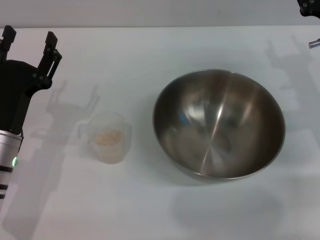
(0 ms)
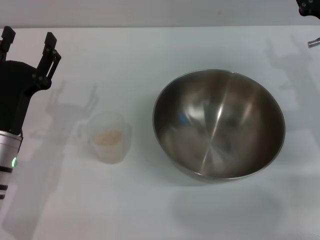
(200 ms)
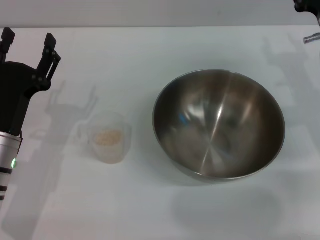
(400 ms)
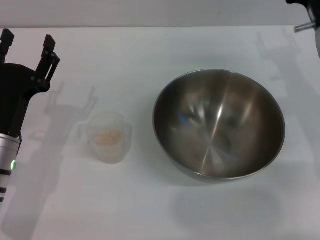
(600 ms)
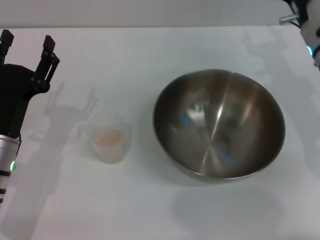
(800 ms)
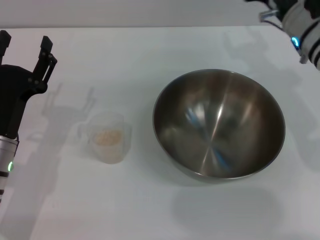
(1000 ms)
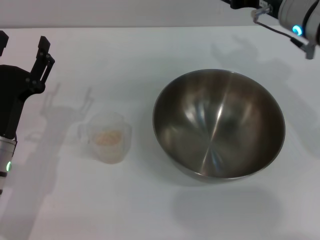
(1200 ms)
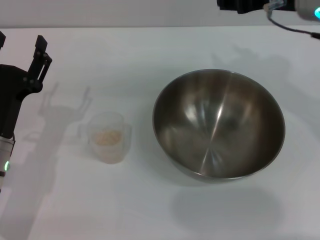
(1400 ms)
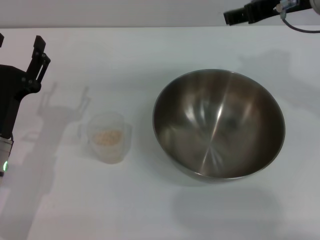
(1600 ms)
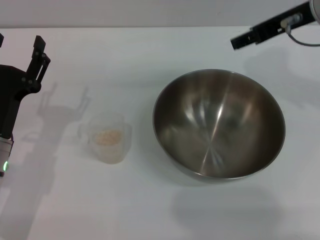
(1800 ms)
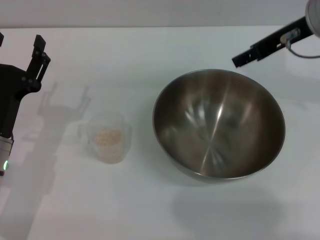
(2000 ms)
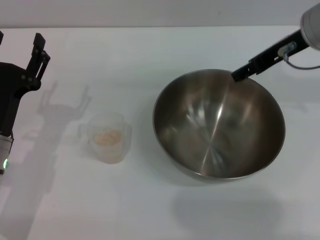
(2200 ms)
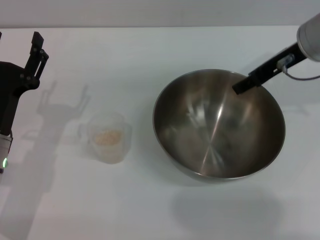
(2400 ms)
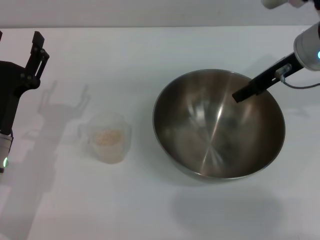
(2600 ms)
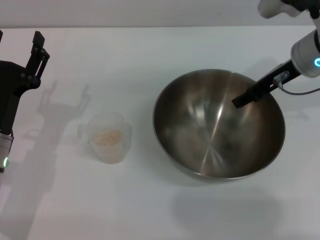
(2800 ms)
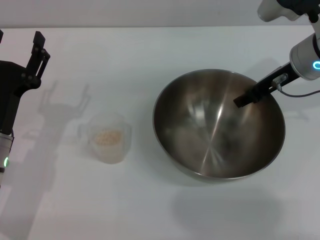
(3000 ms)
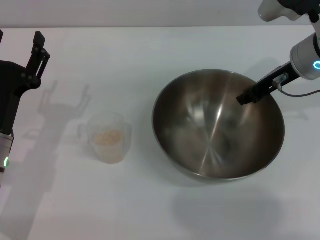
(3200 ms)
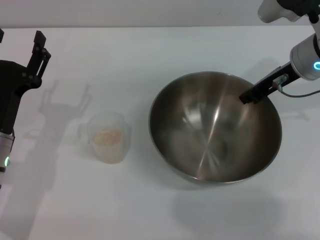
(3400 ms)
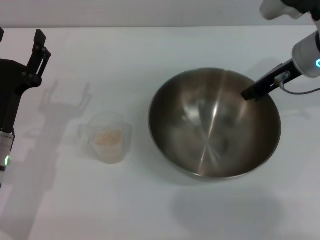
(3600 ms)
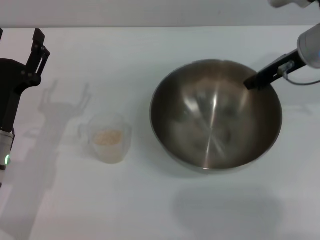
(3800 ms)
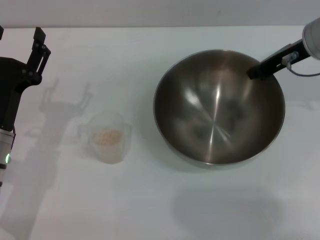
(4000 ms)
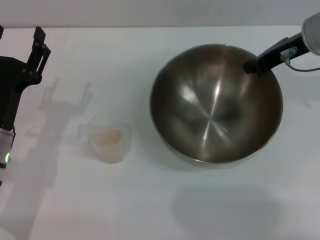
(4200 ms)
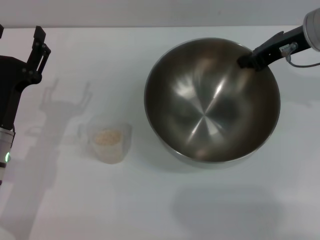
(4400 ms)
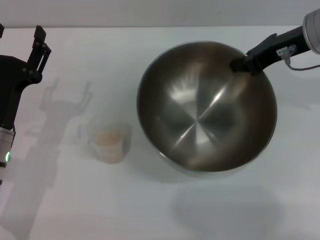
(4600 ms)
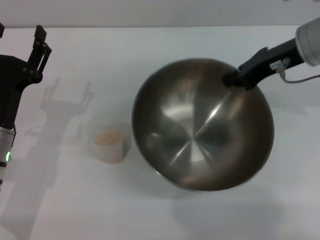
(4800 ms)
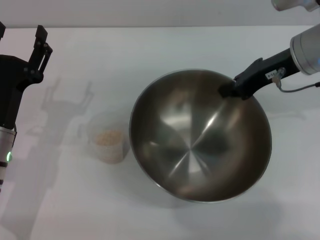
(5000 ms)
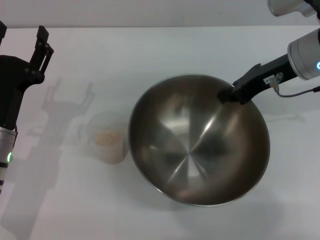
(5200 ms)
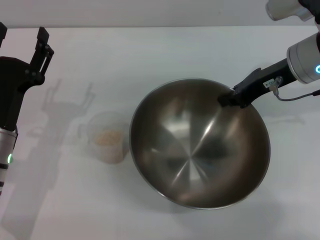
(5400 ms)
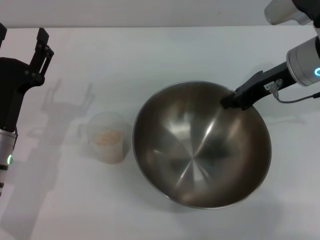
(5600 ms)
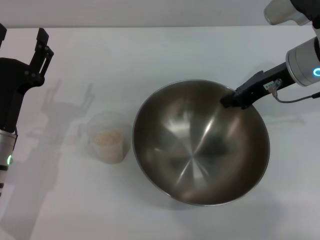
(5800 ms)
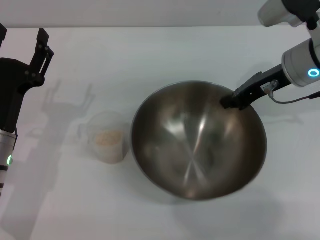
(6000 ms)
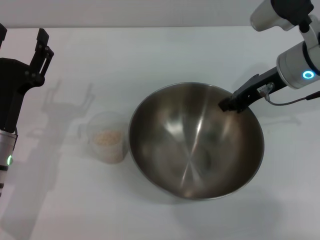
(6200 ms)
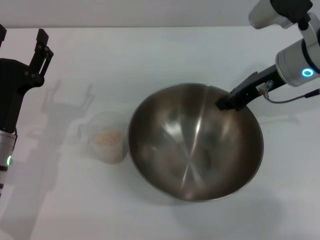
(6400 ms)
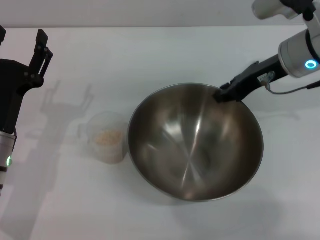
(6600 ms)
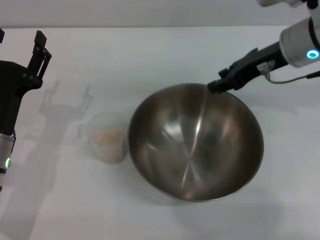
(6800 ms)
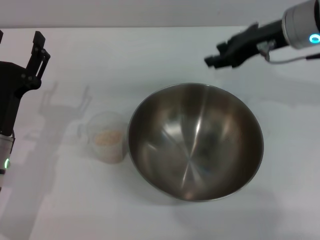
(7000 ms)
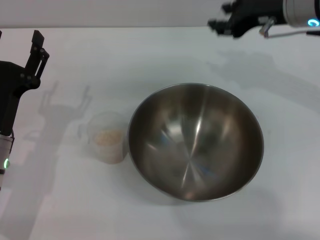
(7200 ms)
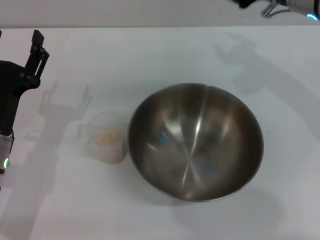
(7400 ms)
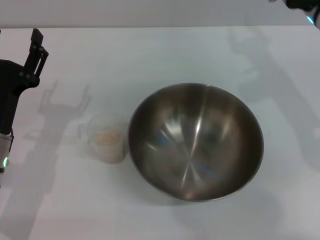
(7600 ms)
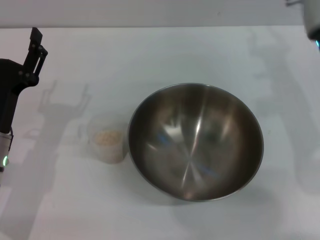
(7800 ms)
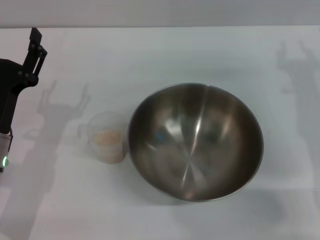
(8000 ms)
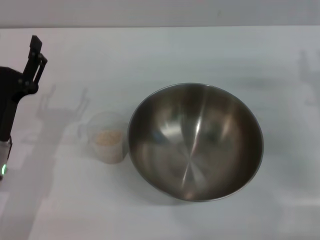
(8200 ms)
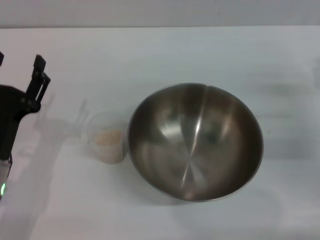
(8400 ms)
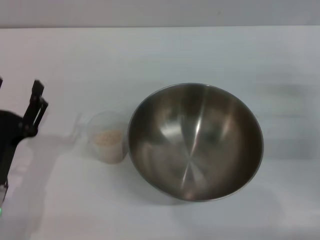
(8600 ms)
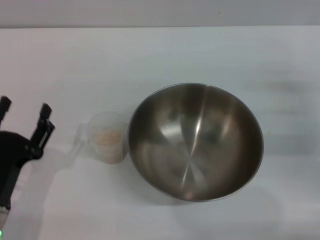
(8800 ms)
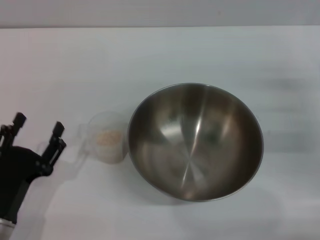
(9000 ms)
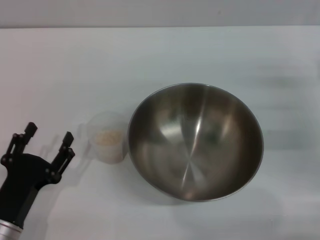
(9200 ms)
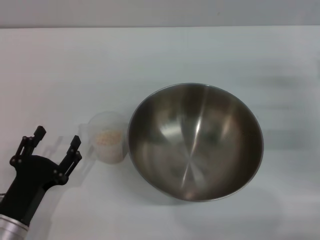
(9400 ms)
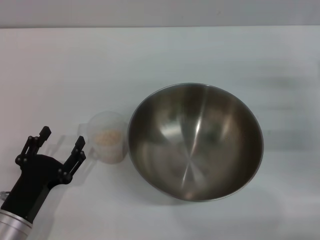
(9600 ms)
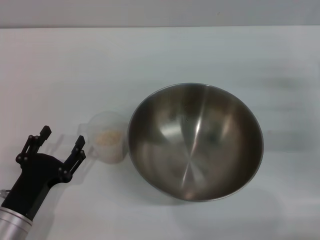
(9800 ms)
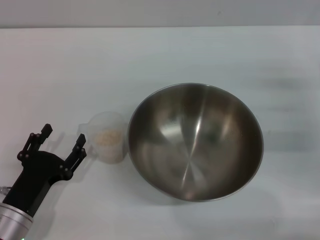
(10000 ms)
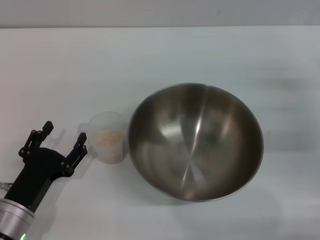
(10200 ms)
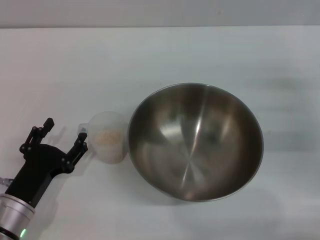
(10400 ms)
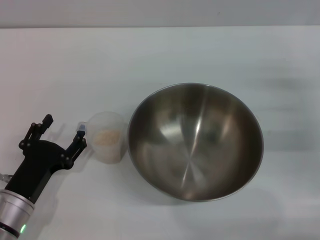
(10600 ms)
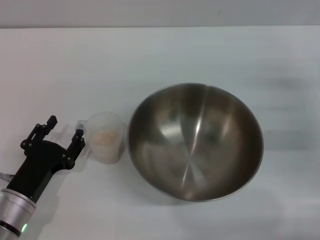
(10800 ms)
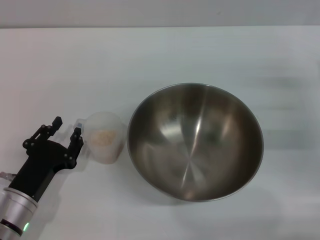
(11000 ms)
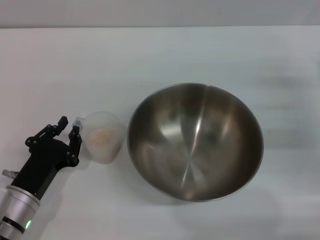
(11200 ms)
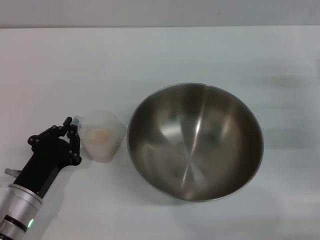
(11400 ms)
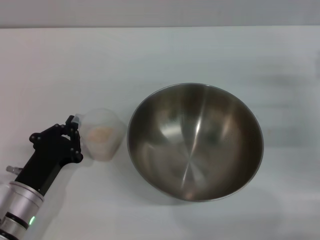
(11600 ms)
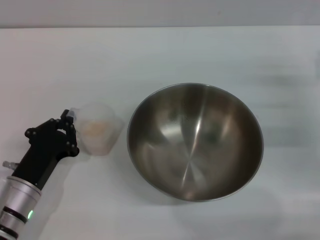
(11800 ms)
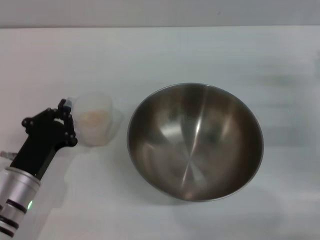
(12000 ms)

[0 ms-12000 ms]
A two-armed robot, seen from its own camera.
Task of the whole recording: Place the bowl in the middle of the table with one hand and pour the rice from the grain cup into it with the other hand.
Step, 0 ms to 4600 ms: Pick up the bowl with the right gripper.
Step, 5000 ms to 6800 ms: Place the bowl in the center of view with the right gripper.
0 ms to 1600 ms: The right gripper moves upward and to the left, approximately 20 cm.
1600 ms to 3000 ms: The right gripper shifts some 10 cm downward.
3000 ms to 4400 ms: The right gripper closes its fingers.
6000 ms to 7600 ms: The right gripper opens its fingers.
7600 ms to 9000 ms: The left gripper shifts about 10 cm backward. Meanwhile the right gripper shifts approximately 20 cm to the right, downward and backward.
9000 ms to 10400 ms: The grippers move only a little.
10400 ms to 12000 ms: The left gripper closes its fingers.

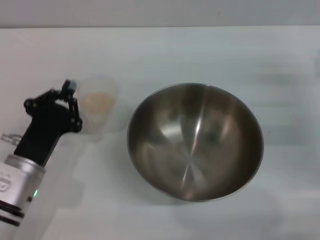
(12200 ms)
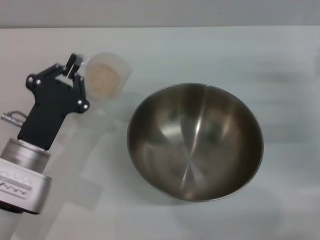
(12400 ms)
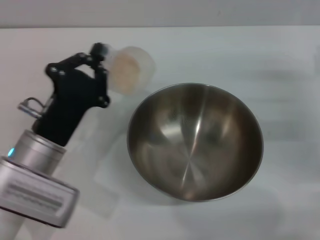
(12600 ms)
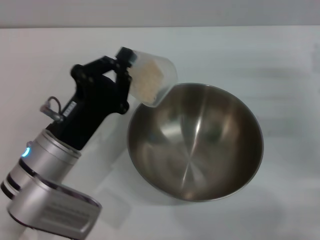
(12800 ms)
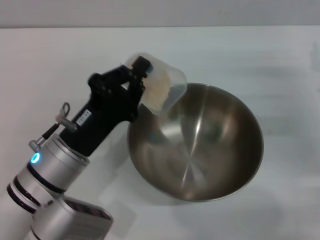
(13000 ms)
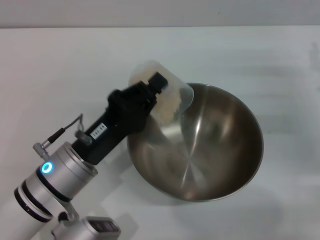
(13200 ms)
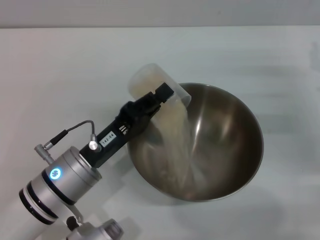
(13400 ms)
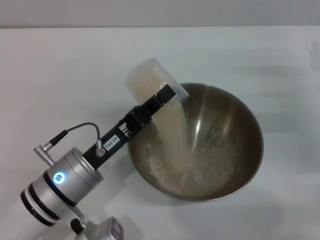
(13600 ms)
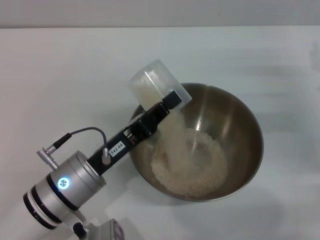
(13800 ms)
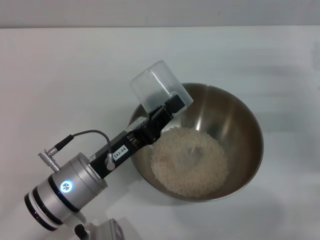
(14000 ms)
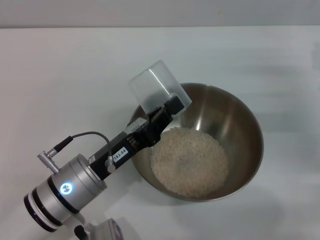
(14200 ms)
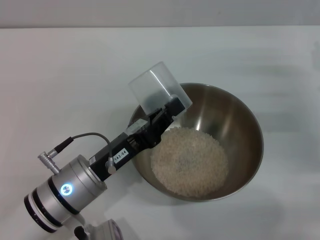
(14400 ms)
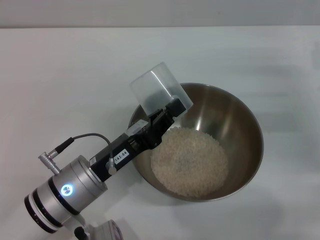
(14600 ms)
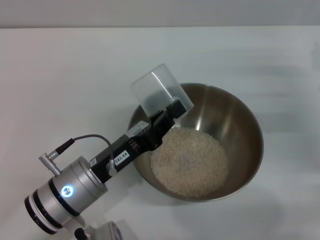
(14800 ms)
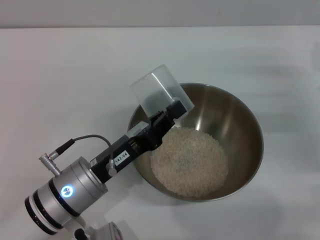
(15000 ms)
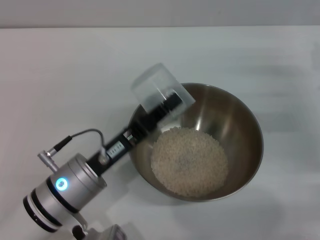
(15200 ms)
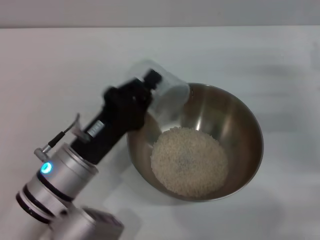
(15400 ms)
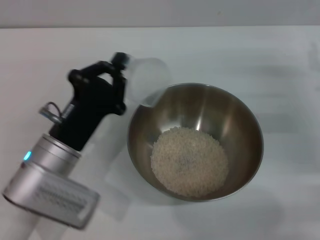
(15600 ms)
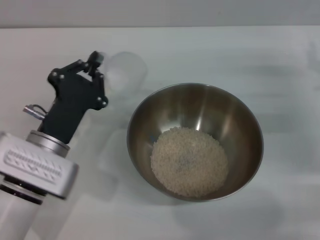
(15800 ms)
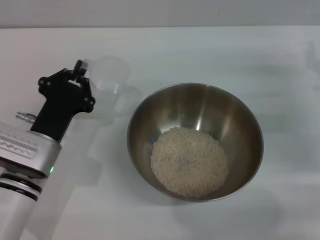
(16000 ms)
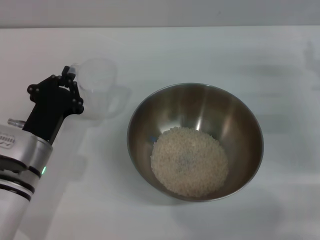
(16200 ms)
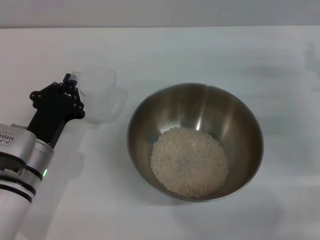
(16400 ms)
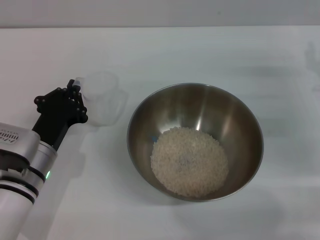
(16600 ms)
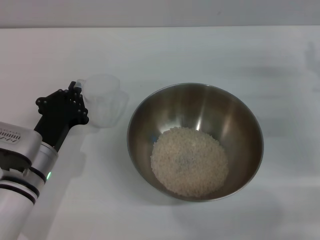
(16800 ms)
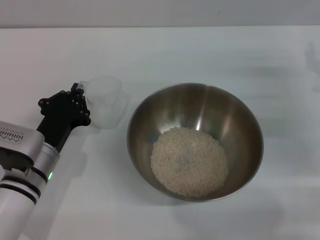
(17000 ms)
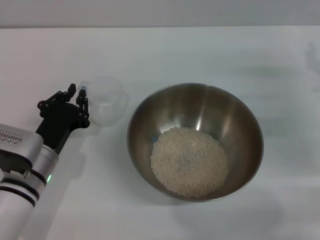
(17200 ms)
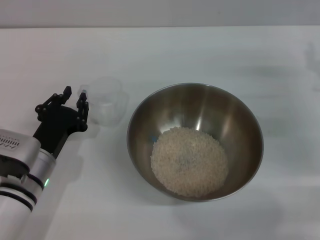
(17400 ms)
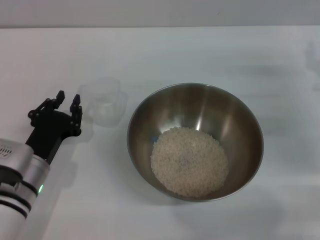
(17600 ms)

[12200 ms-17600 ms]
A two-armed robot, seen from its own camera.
Task of the whole recording: Place the bowl in the middle of the table with one hand and pour the rice from the grain cup into it with the other hand.
Step, 12400 ms to 14000 ms: Pour the rice from the cup into the bowl with the left gripper.
Step, 14400 ms to 16600 ms: Place the cup on the table with the left gripper.
12200 ms to 13600 ms: The left gripper shifts about 5 cm to the right.
13600 ms to 15000 ms: The grippers stay close to where they were, moving slightly.
15000 ms to 16200 ms: The left gripper heads to the left, covering approximately 5 cm.
16200 ms to 17600 ms: The grippers stay close to where they were, moving slightly.
